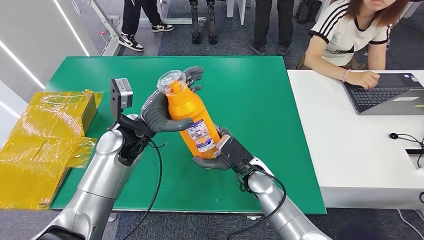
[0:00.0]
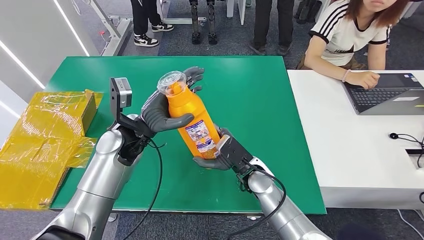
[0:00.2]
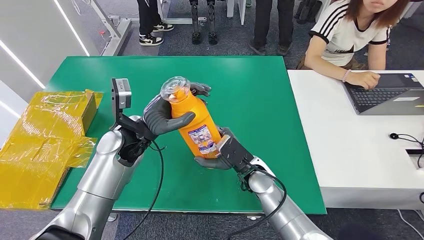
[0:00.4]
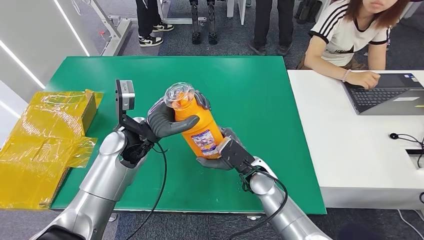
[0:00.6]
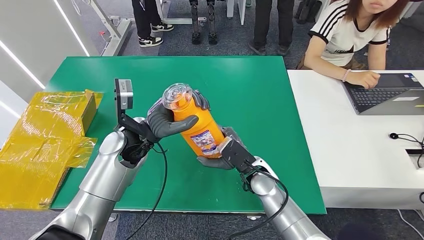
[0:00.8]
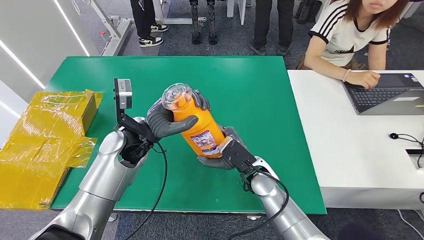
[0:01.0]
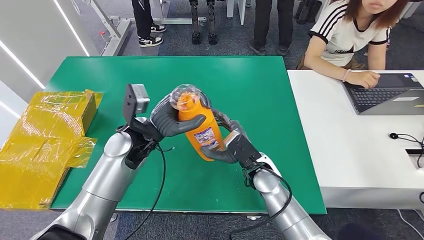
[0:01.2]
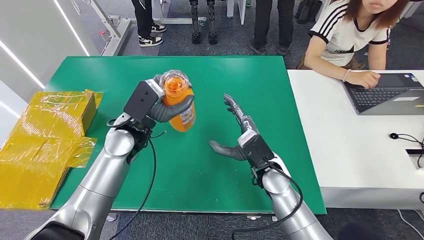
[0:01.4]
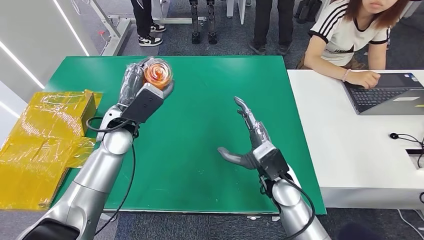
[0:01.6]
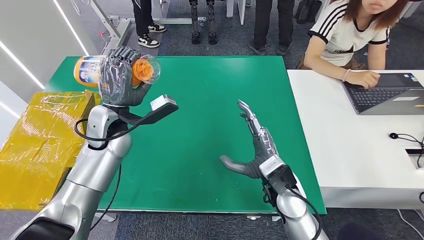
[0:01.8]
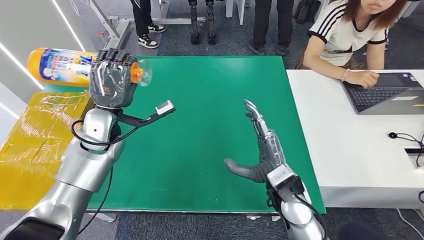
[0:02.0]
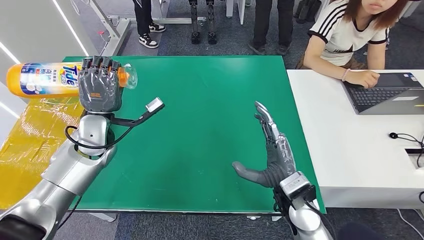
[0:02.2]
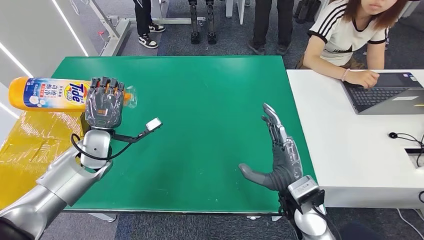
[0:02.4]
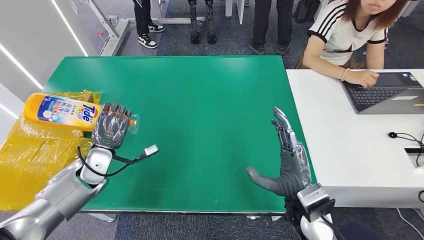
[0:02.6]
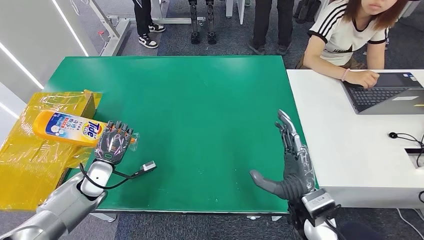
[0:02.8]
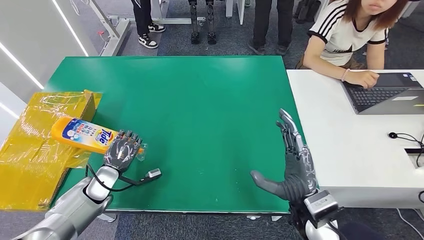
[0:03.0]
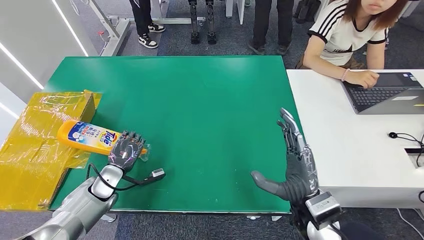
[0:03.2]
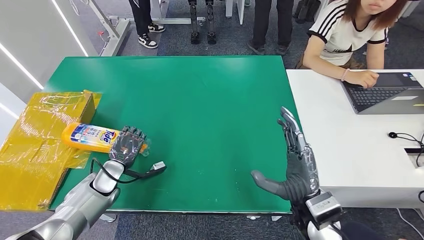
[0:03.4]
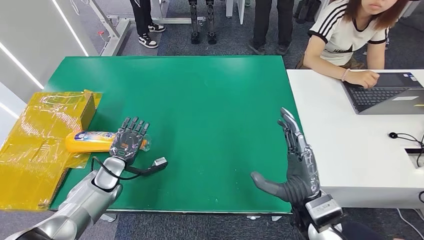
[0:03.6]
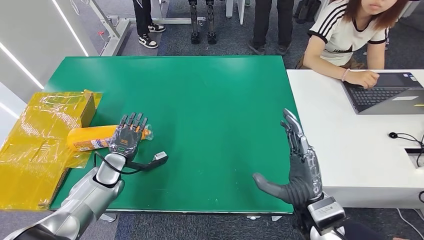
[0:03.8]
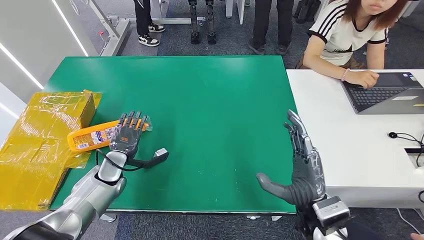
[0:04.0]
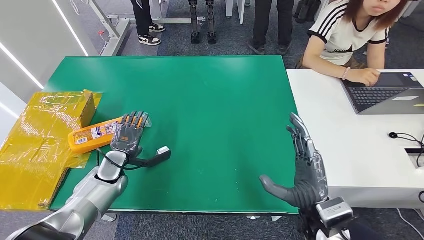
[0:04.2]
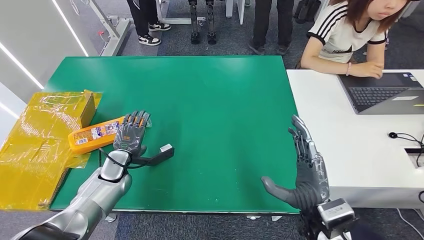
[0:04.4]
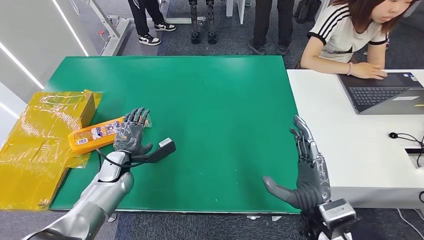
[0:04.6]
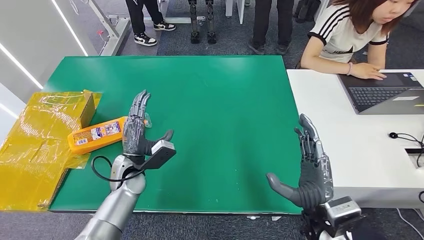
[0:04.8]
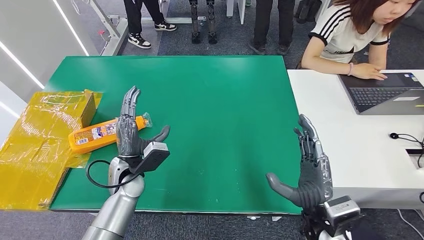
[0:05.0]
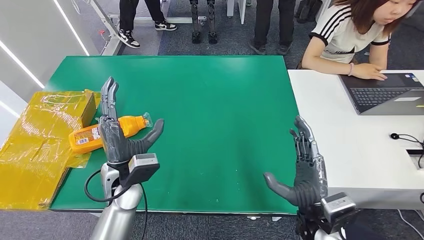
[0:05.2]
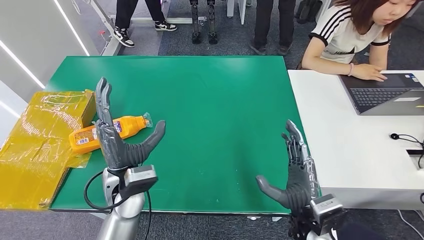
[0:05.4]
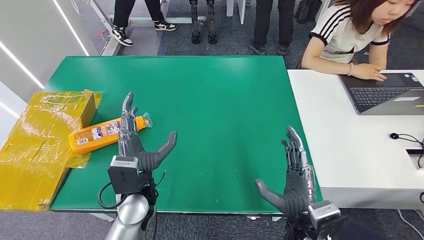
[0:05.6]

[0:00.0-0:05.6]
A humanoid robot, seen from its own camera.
Step, 0:00.0 to 0:05.6: Turn the bottle to the front side.
0:02.8 to 0:04.2: The left hand moves approximately 5 cm.
0:04.2 to 0:05.6: The left hand heads to the right, backward and upward, covering some 20 cm.
